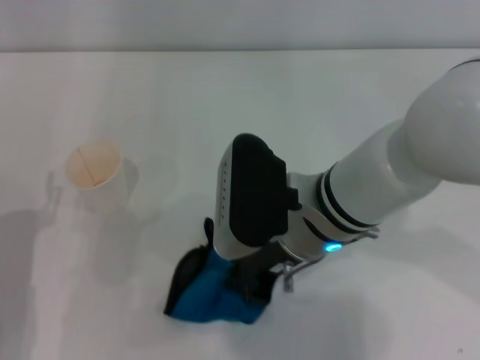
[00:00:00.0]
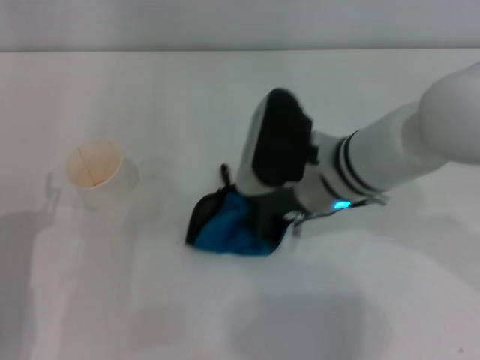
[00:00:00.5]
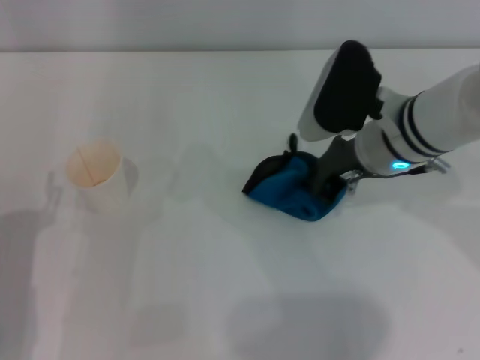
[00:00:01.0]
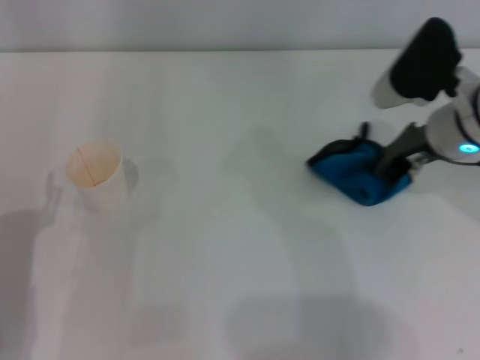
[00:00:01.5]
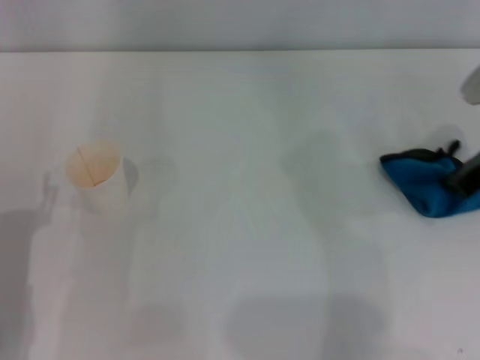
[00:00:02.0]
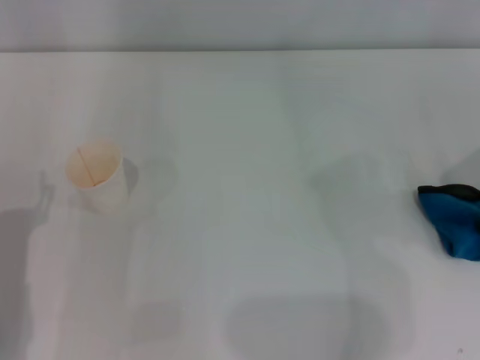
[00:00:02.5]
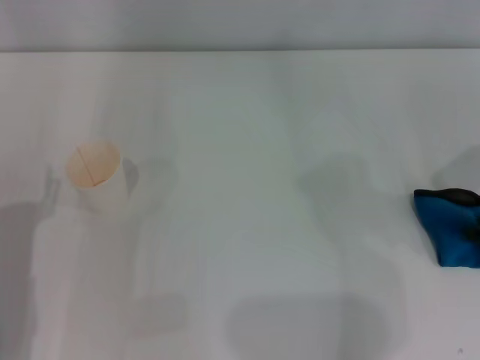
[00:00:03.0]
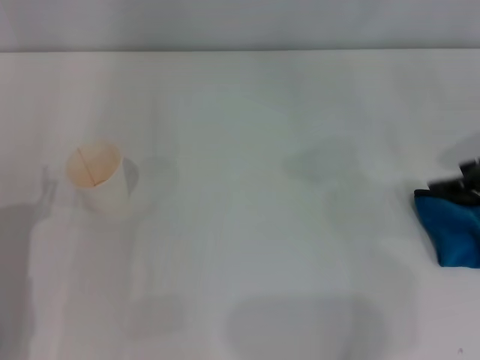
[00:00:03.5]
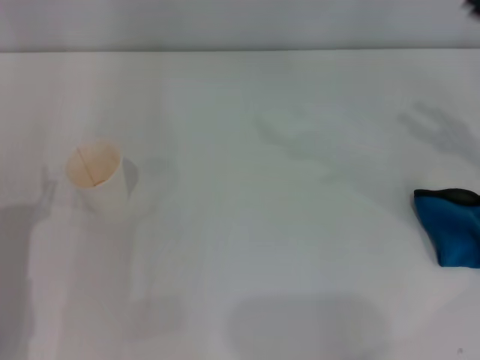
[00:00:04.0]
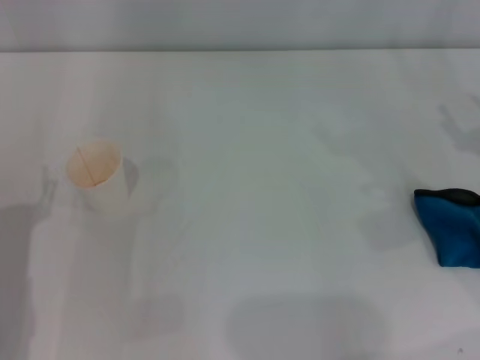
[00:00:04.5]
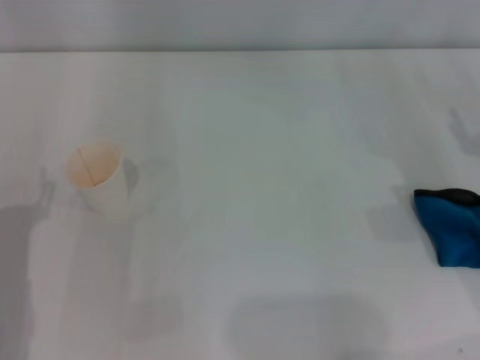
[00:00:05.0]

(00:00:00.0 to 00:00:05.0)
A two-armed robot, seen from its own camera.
Step, 00:00:01.5 - 00:00:02.5: Place the rag on the table with the right gripper.
00:00:00.0 - 00:00:02.5: The right gripper is displaced to the right by roughly 25 cm.
00:00:02.5 - 00:00:05.0: The right gripper goes about 5 cm downward, and opens up.
